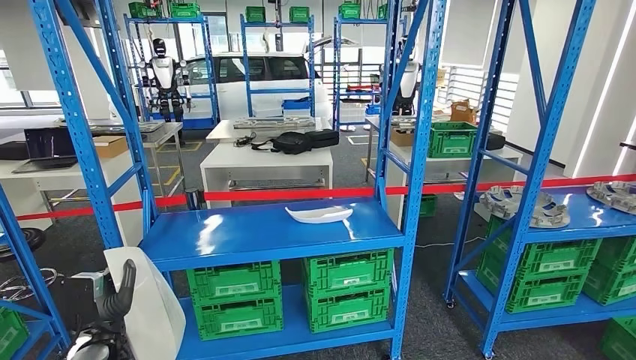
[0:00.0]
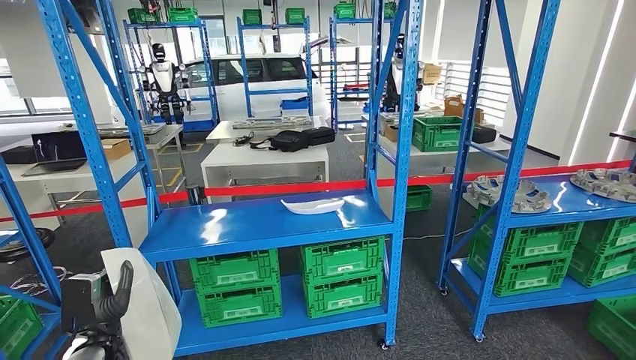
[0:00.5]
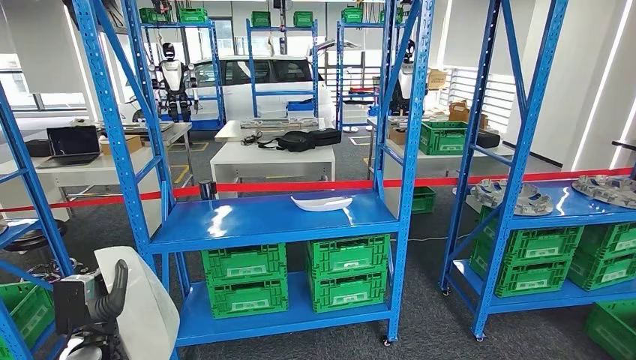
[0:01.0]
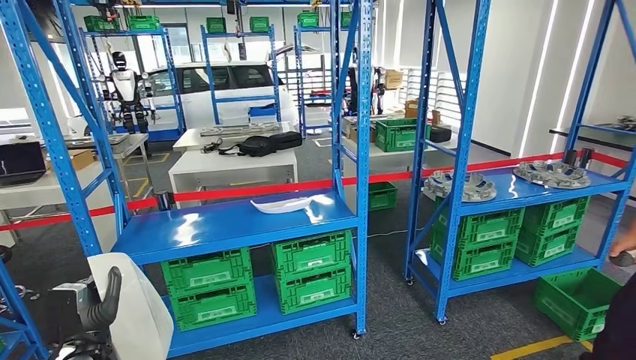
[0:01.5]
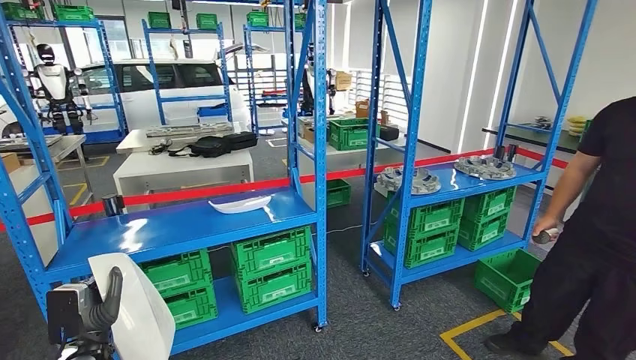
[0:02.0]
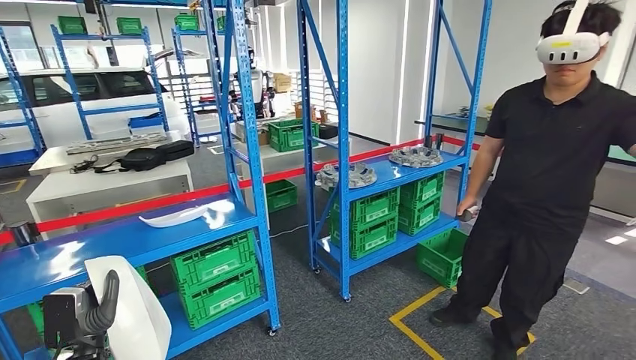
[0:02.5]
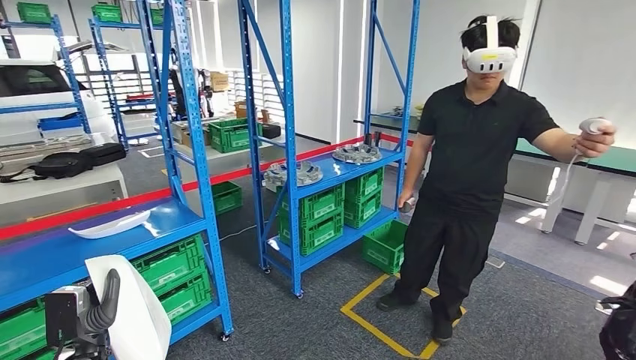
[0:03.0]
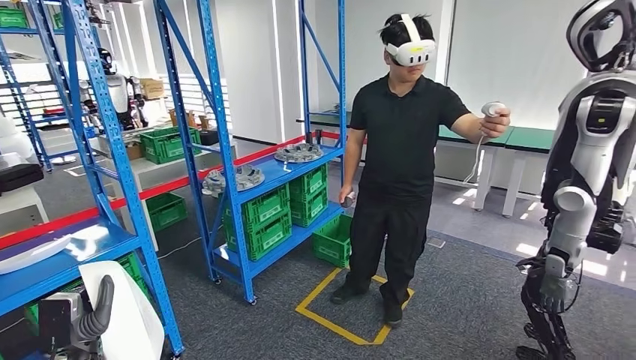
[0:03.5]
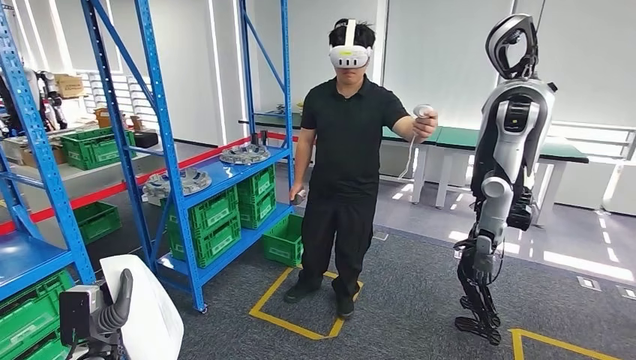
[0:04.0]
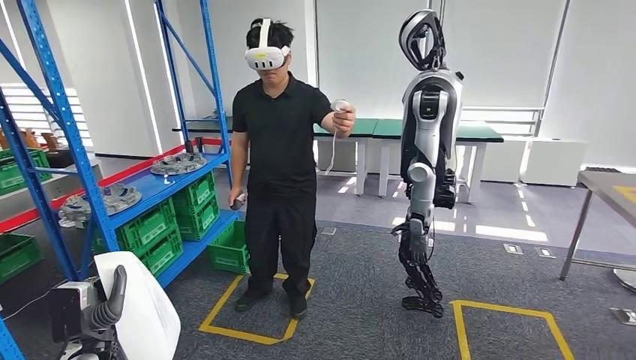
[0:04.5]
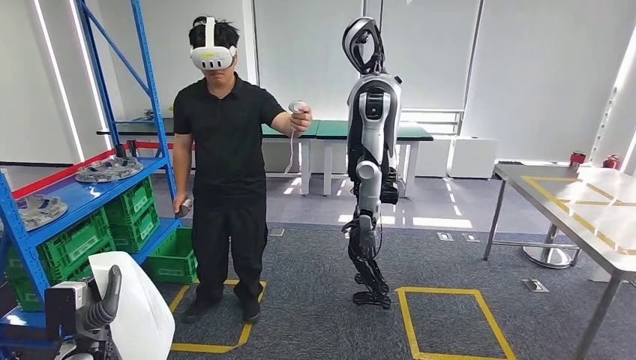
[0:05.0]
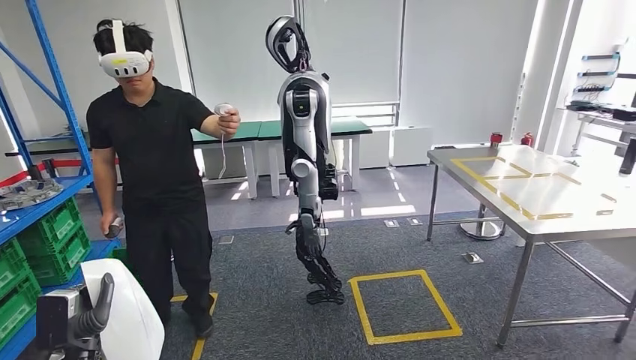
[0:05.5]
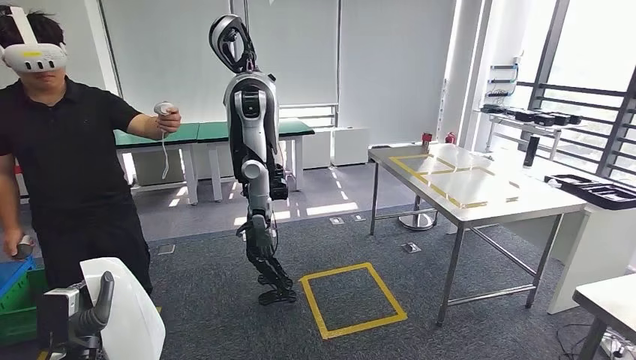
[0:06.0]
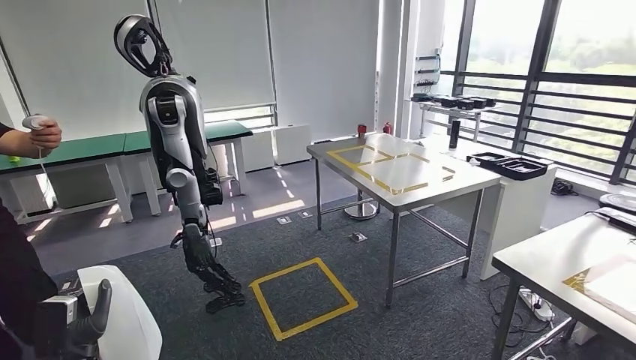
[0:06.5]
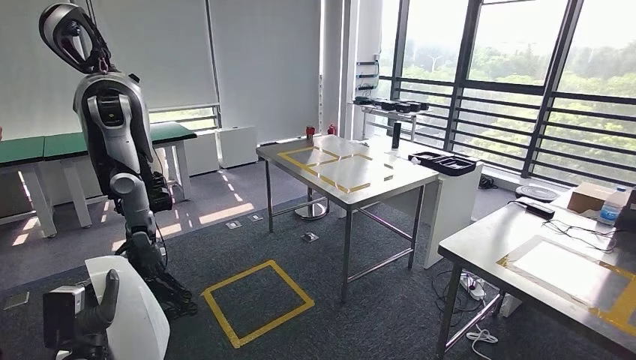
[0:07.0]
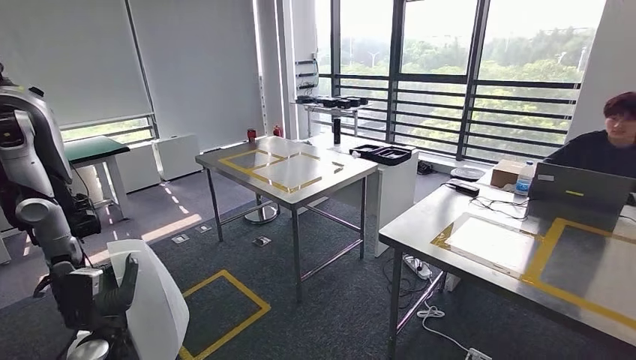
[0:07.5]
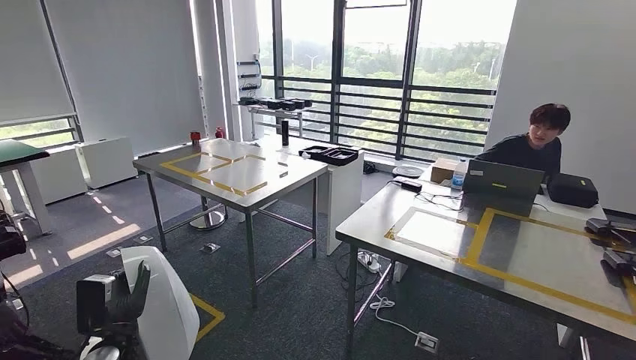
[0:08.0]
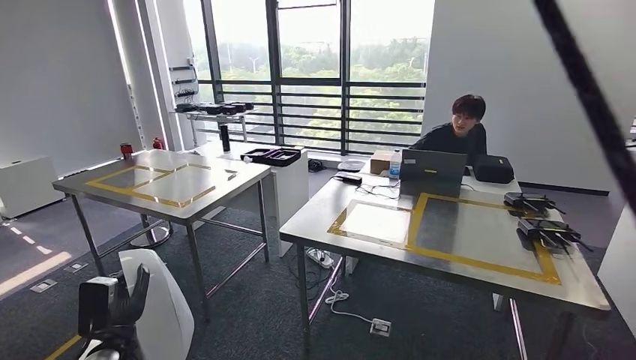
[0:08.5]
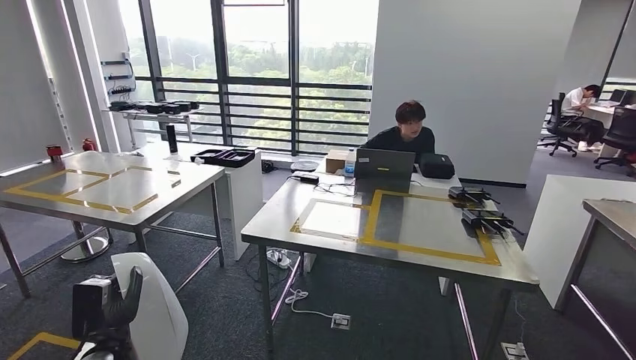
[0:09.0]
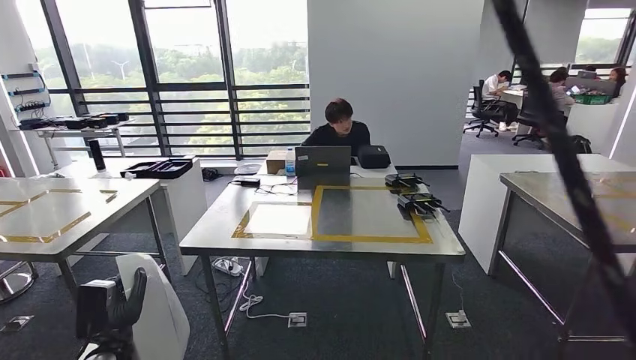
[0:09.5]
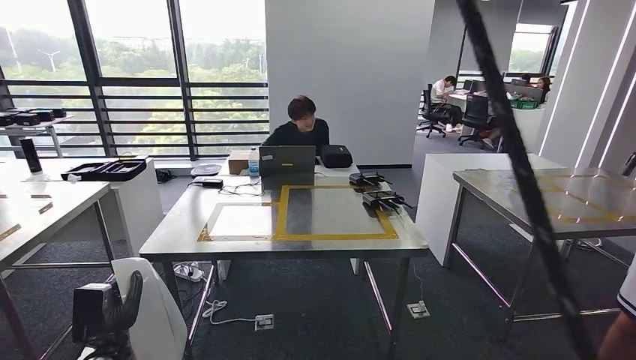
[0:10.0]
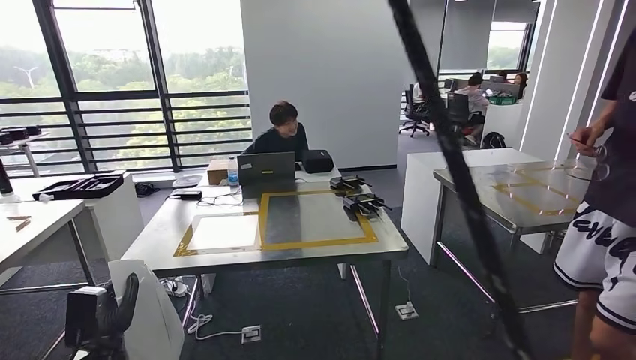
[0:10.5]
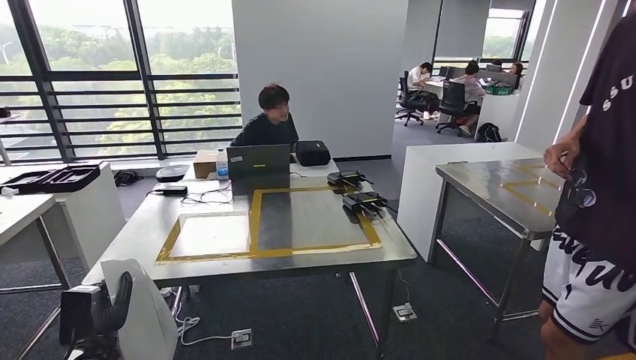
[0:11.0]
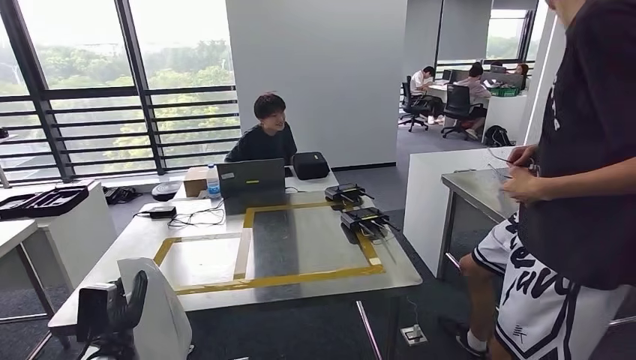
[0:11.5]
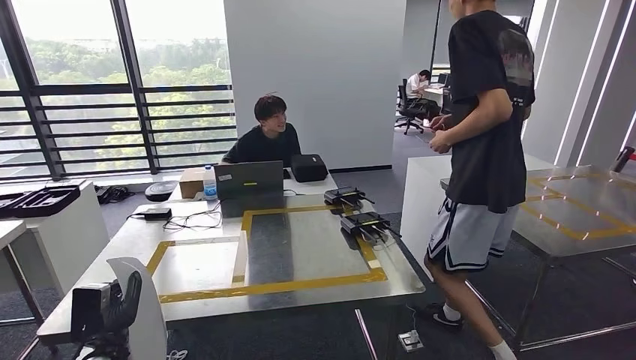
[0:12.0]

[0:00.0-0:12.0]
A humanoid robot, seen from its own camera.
Step, 0:00.0 to 0:10.5: Move the small component to the workbench.

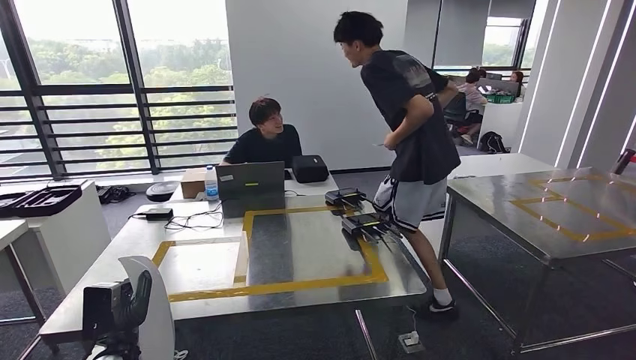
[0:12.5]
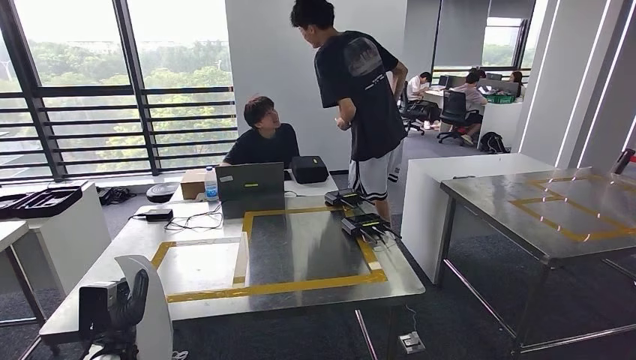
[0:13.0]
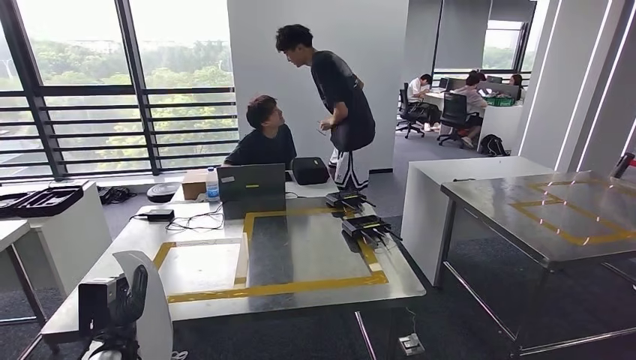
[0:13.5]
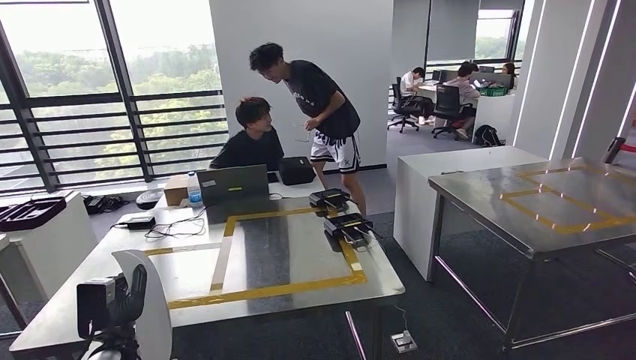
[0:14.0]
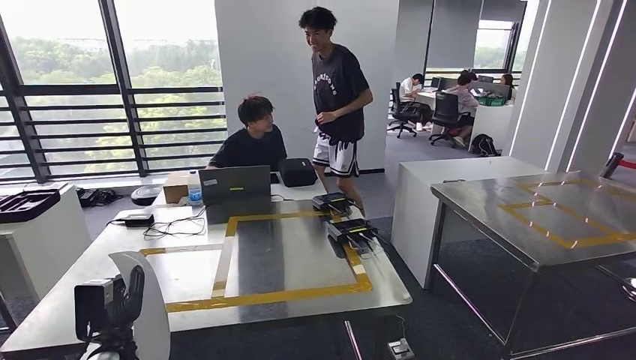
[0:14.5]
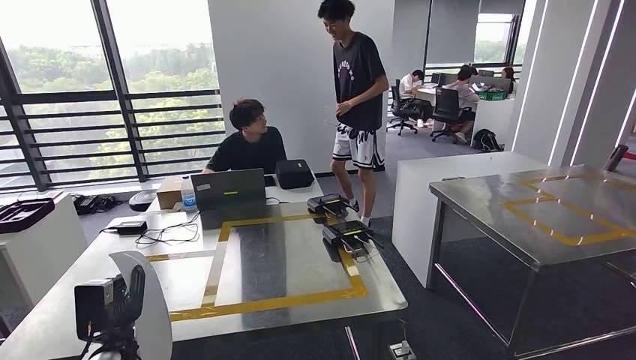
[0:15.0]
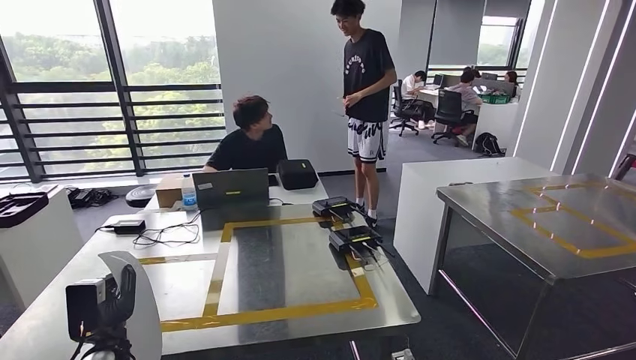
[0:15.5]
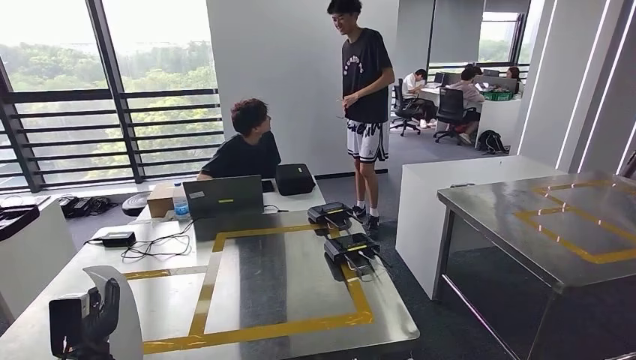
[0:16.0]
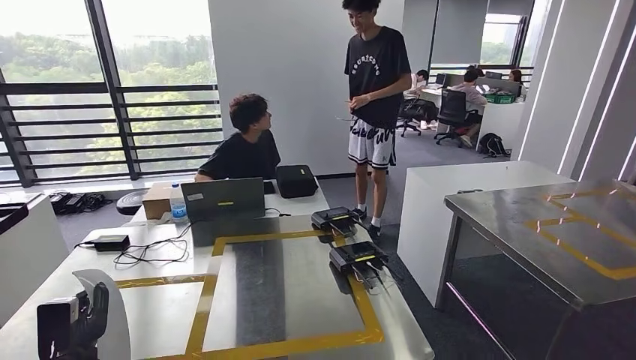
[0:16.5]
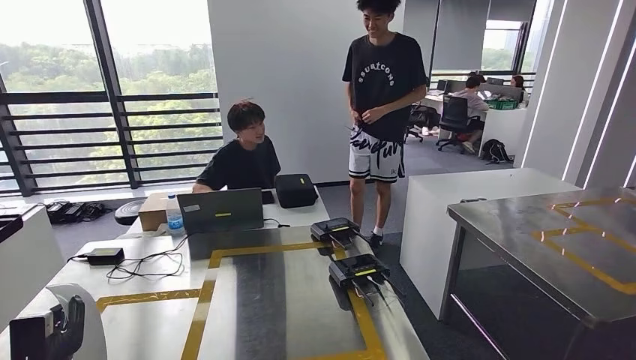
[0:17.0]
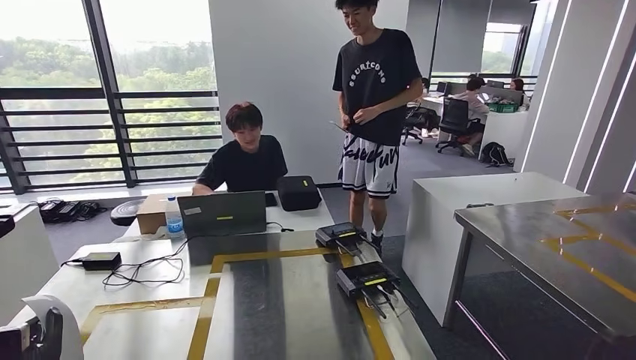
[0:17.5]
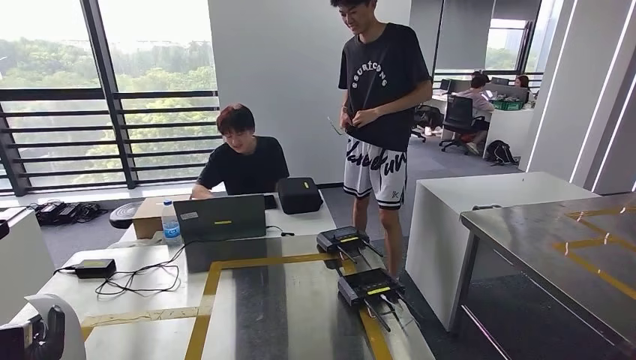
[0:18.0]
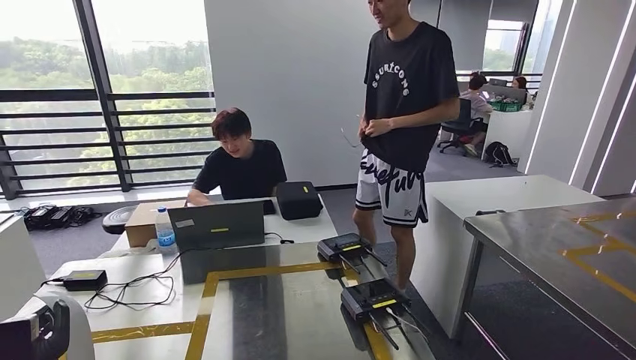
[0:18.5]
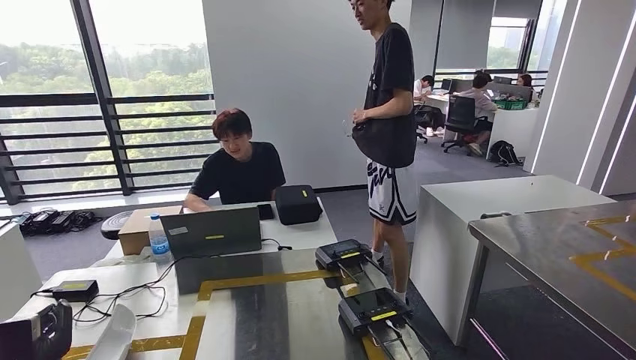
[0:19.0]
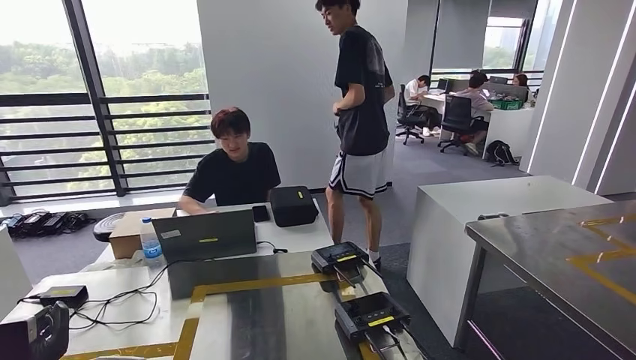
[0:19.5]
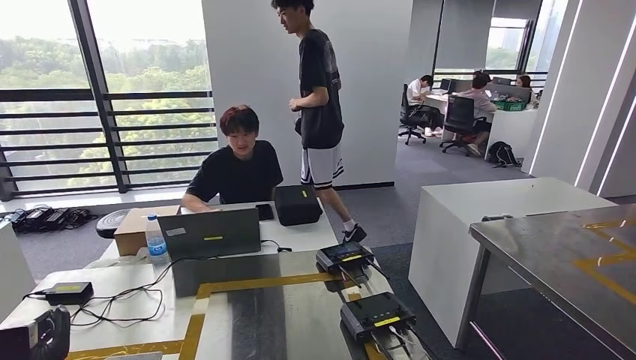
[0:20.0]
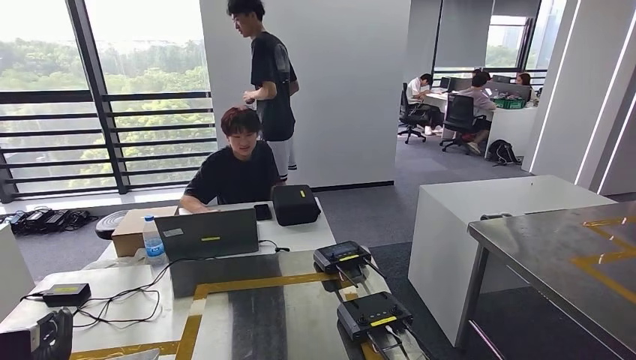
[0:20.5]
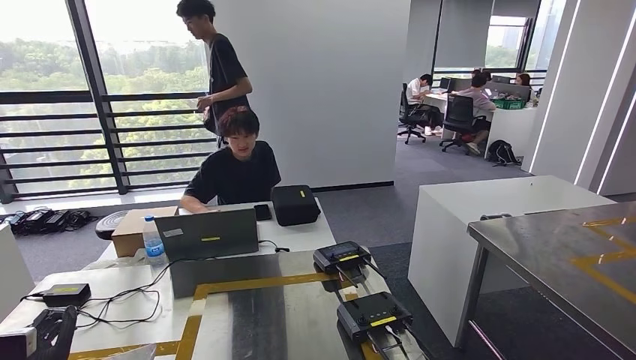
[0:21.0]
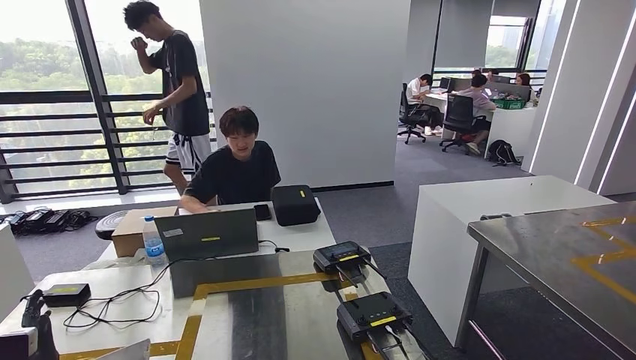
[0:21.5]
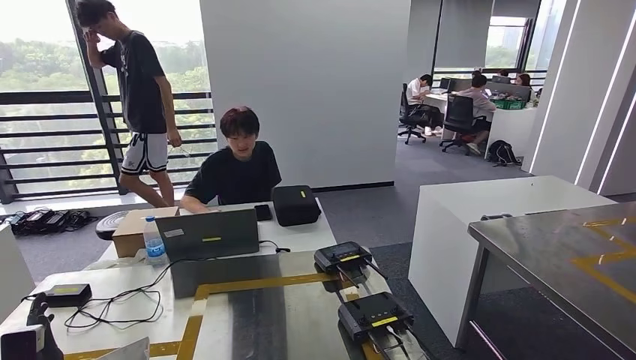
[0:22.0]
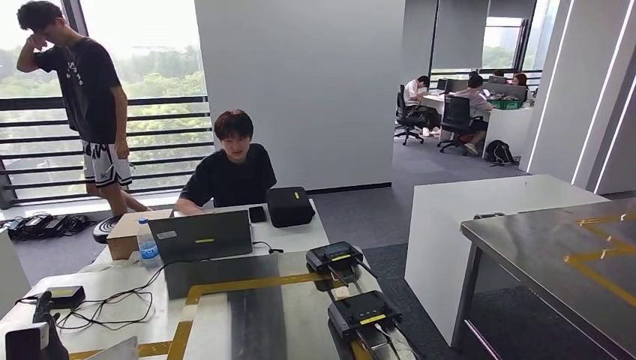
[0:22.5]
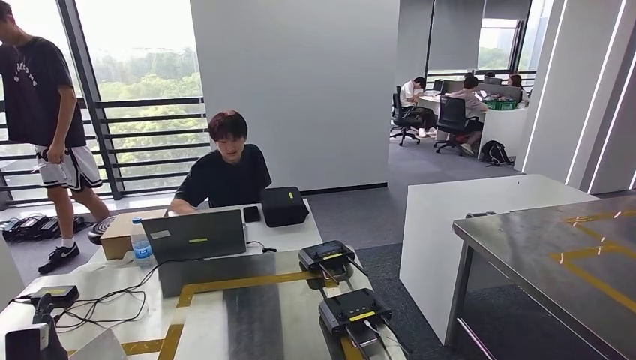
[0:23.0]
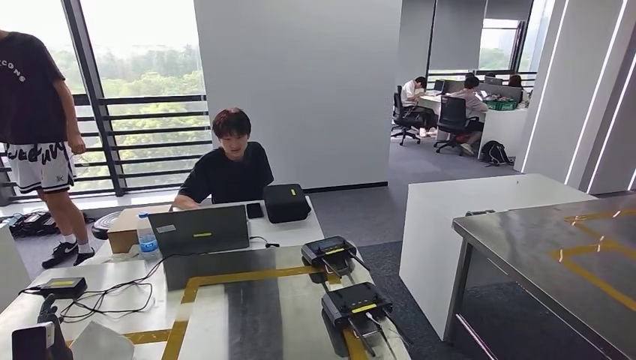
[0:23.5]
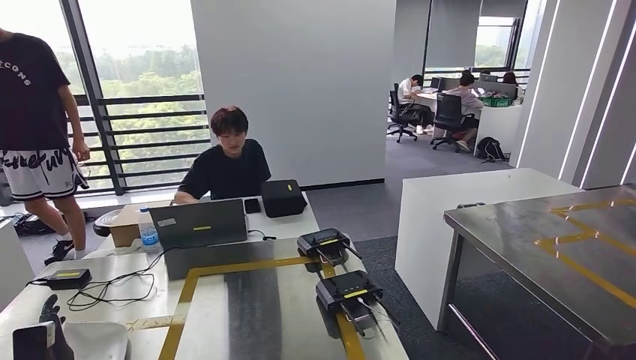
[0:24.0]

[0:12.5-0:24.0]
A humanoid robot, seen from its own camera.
Step, 0:12.5 to 0:20.0: Insert the small component into the corresponding slot on the workbench.
